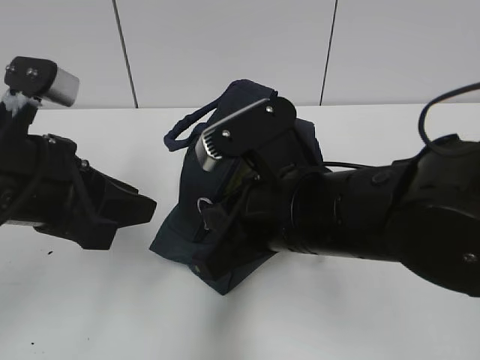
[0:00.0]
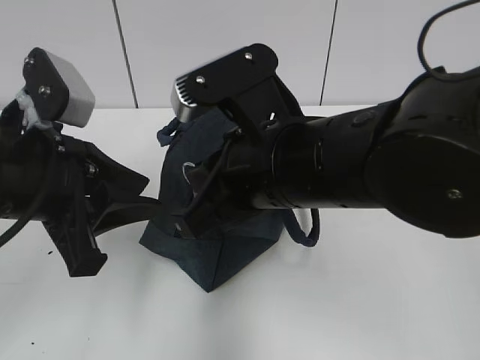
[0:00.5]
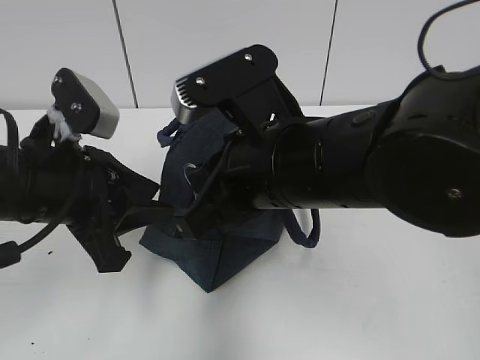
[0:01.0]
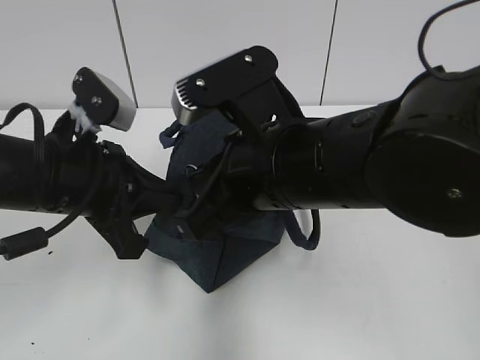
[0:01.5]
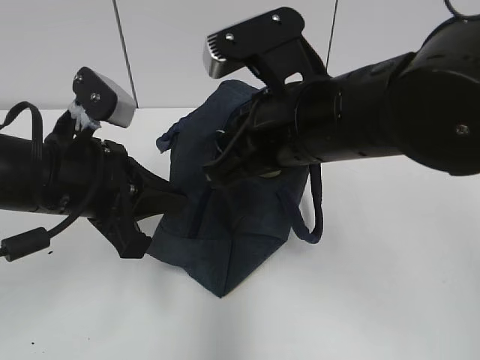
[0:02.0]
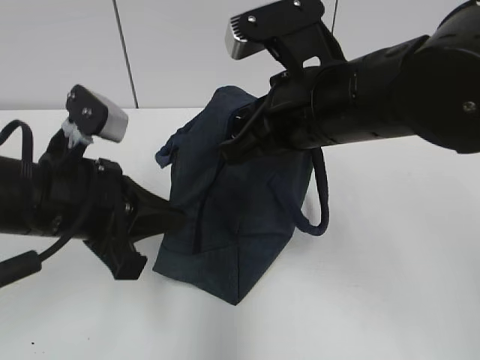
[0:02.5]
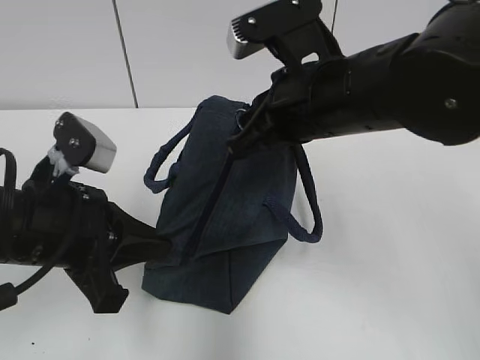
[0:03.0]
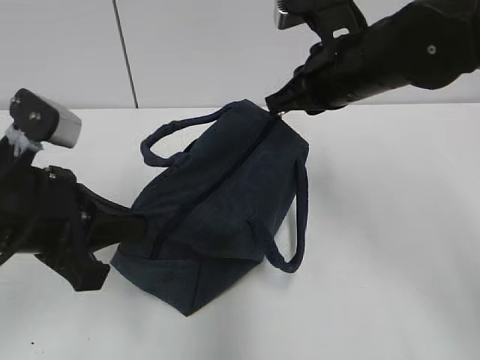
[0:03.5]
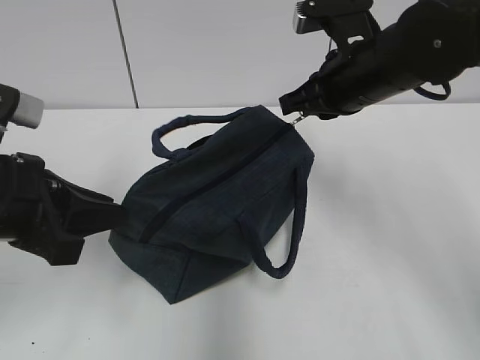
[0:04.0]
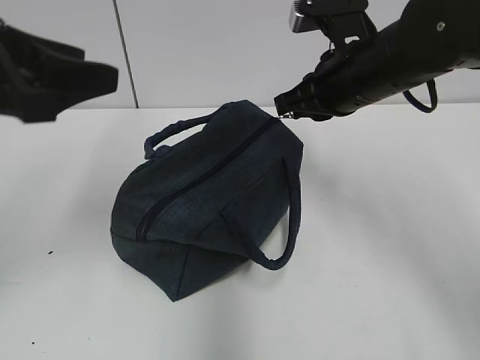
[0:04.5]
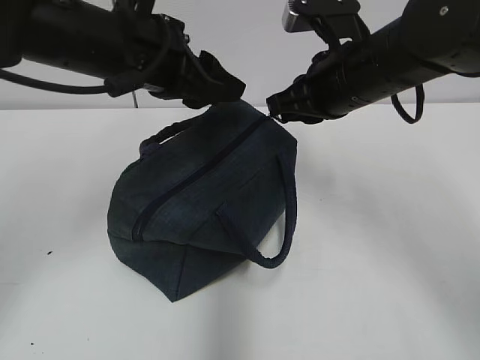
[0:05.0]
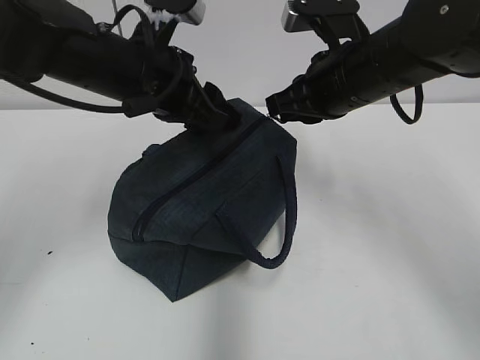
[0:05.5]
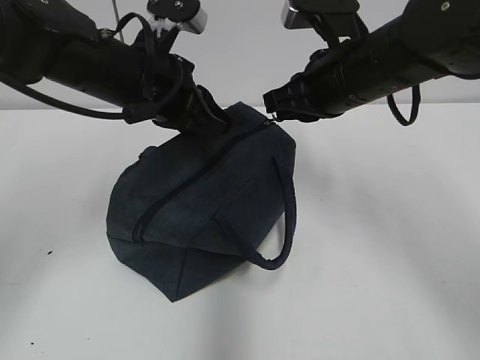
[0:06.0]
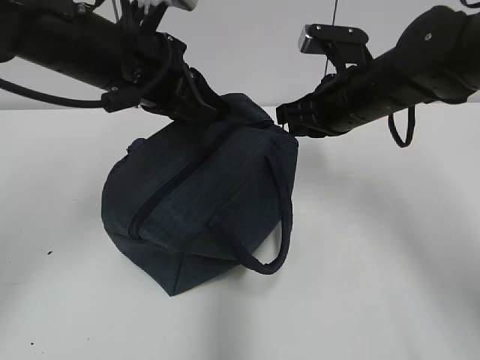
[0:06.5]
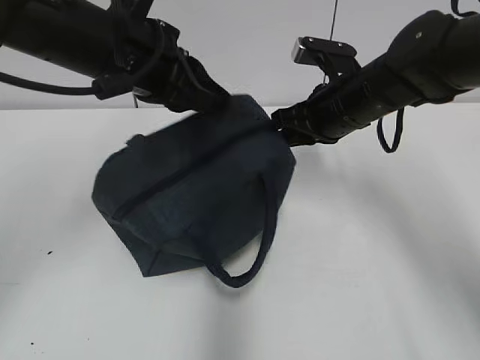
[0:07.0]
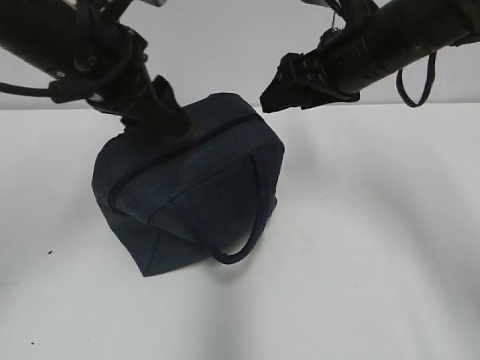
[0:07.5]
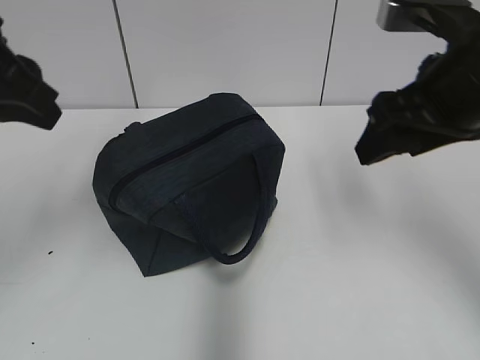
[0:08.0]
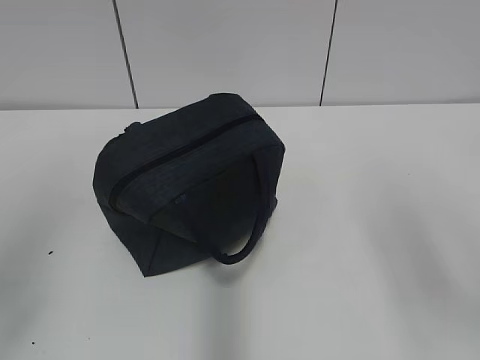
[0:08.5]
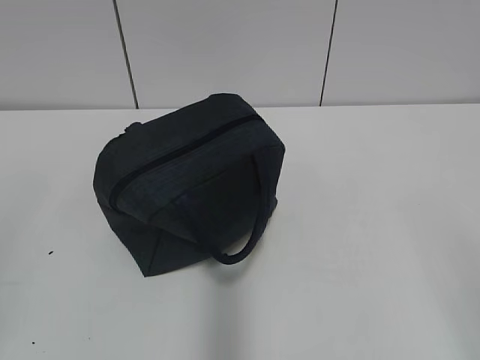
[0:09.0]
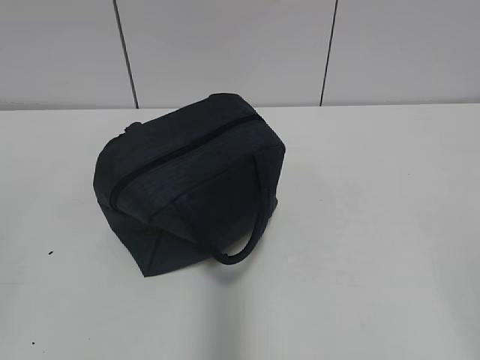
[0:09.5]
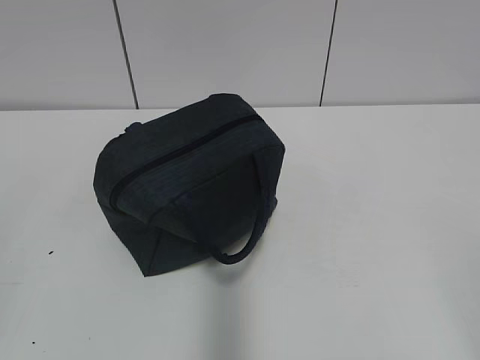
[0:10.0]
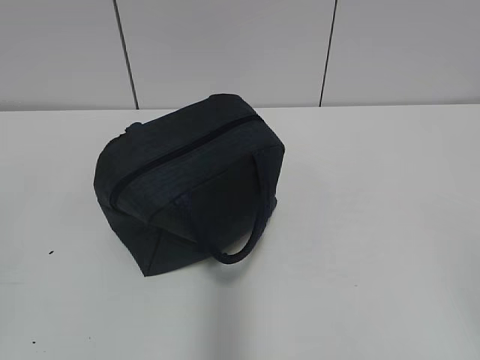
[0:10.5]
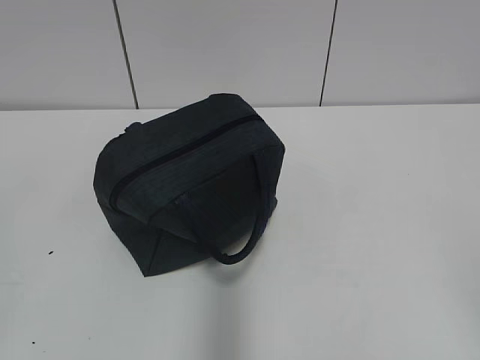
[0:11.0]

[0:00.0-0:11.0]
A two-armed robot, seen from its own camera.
Step, 0:00.0 to 0:02.0: Grab the lunch bag with your left hand.
Step, 0:02.5 to 0:06.0: Pull the zipper with your right hand.
0:00.0 to 0:02.0: The left gripper closes its fingers. Meanwhile the right gripper ends up approximately 5 cm from where it was.
0:02.0 to 0:03.5: The left gripper ends up about 5 cm from where it was; the right gripper is displaced forward and to the right by some 10 cm.
0:03.5 to 0:05.5: The left gripper moves forward and to the right, some 15 cm, and opens its fingers.
0:05.5 to 0:07.5: The left gripper goes about 5 cm upward, and closes, then reopens. The right gripper opens its fingers.
0:07.5 to 0:09.0: The right gripper heads backward, covering some 35 cm, while the left gripper moves backward and to the left, about 35 cm.
